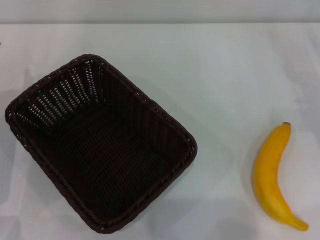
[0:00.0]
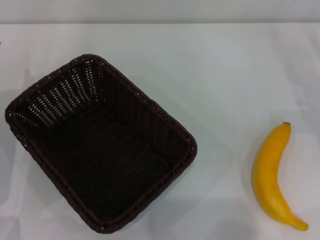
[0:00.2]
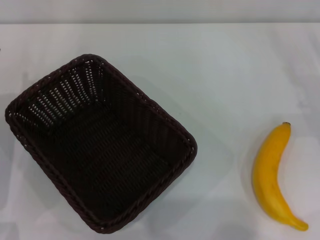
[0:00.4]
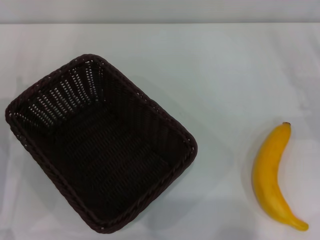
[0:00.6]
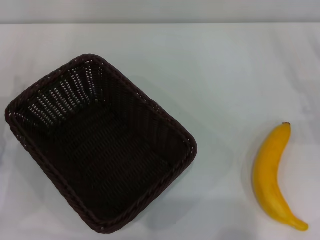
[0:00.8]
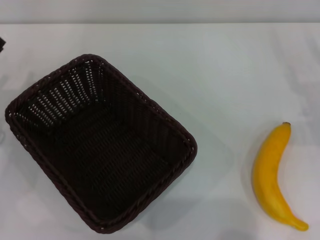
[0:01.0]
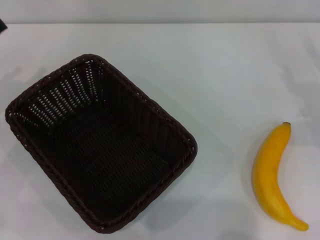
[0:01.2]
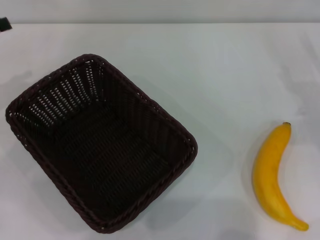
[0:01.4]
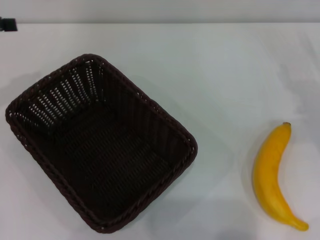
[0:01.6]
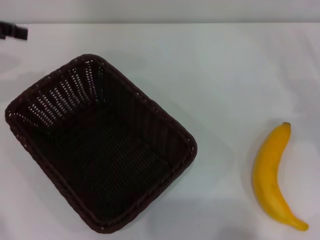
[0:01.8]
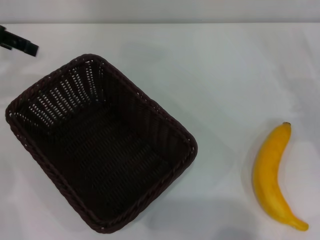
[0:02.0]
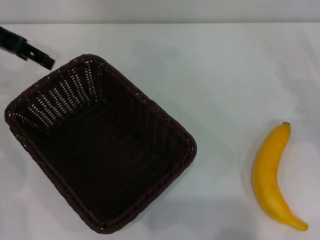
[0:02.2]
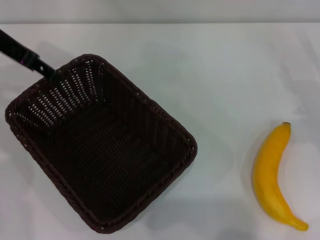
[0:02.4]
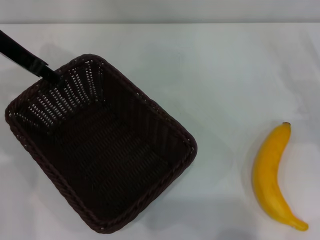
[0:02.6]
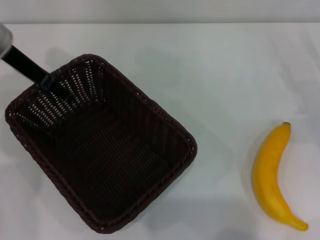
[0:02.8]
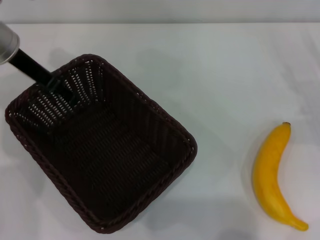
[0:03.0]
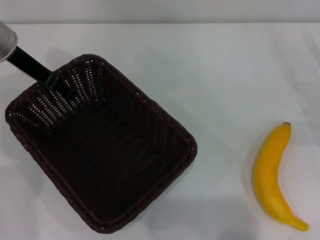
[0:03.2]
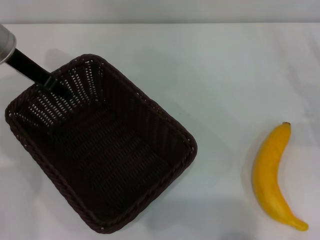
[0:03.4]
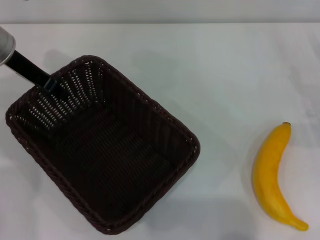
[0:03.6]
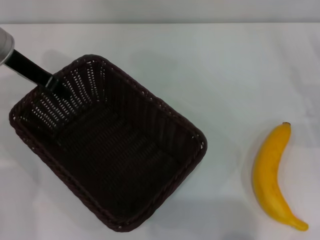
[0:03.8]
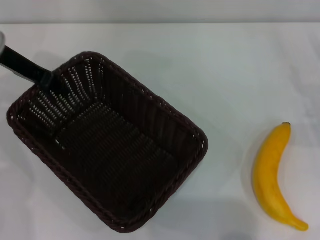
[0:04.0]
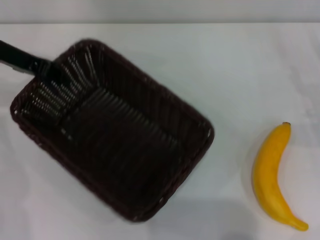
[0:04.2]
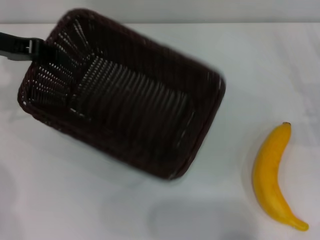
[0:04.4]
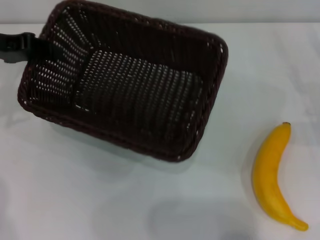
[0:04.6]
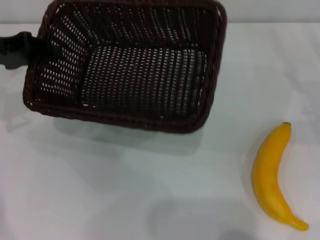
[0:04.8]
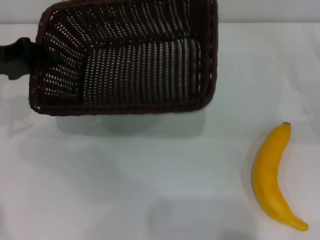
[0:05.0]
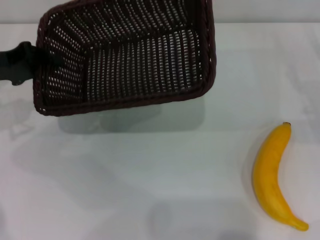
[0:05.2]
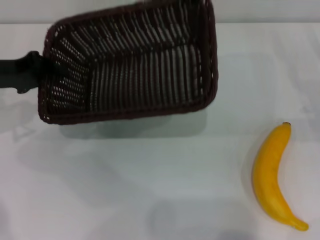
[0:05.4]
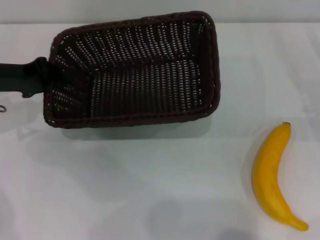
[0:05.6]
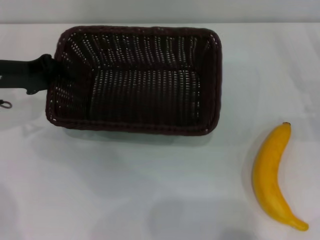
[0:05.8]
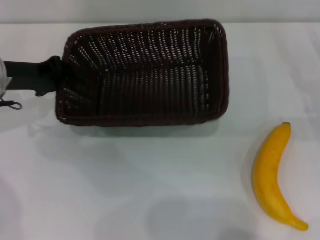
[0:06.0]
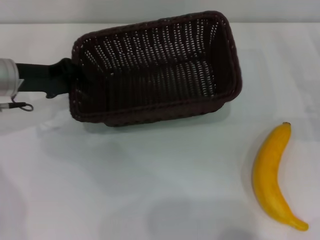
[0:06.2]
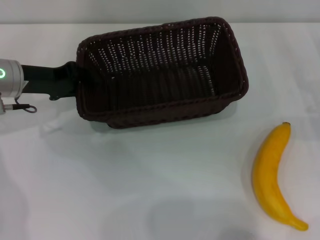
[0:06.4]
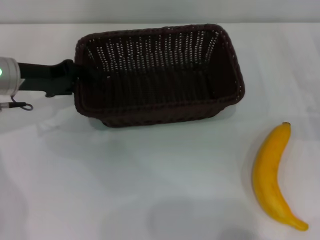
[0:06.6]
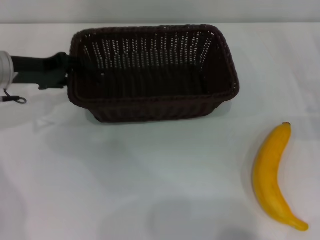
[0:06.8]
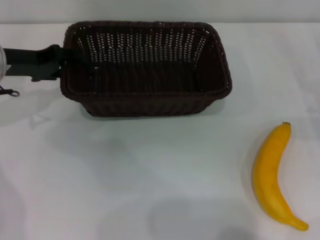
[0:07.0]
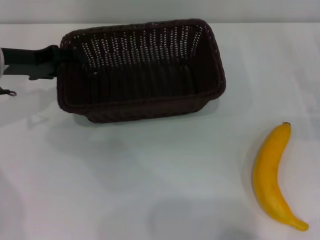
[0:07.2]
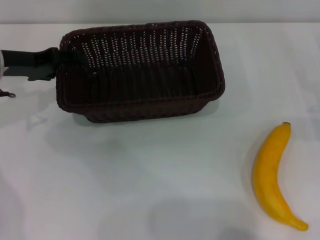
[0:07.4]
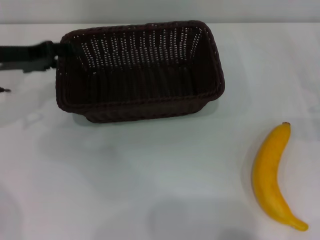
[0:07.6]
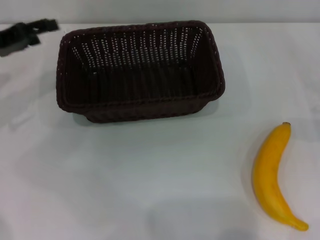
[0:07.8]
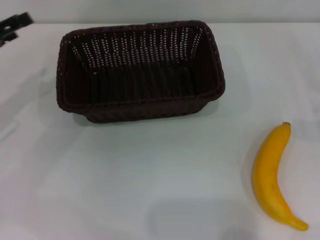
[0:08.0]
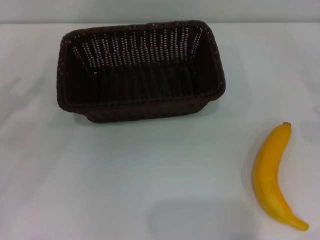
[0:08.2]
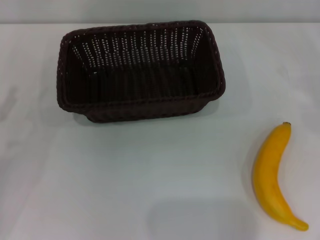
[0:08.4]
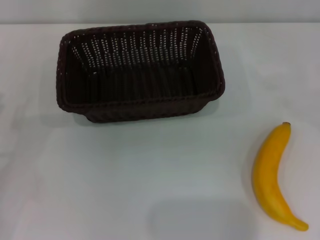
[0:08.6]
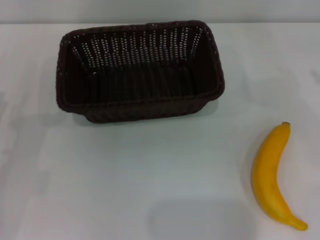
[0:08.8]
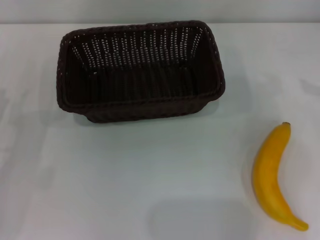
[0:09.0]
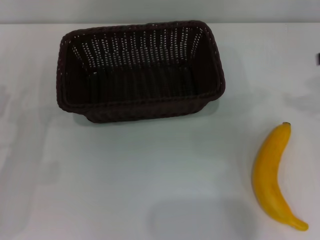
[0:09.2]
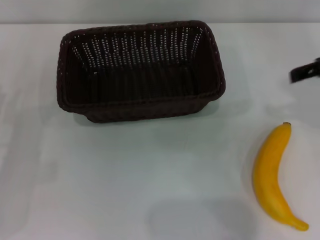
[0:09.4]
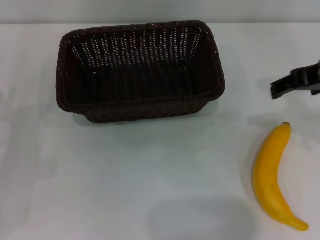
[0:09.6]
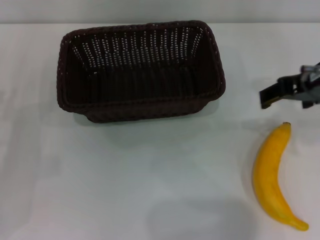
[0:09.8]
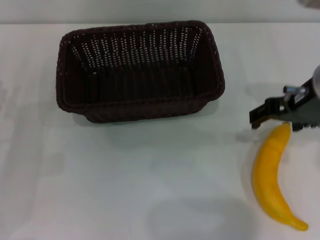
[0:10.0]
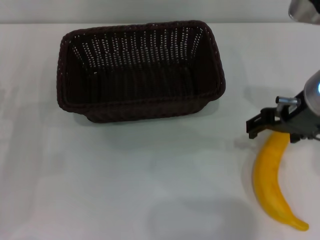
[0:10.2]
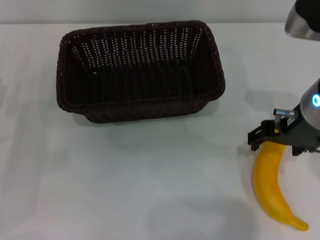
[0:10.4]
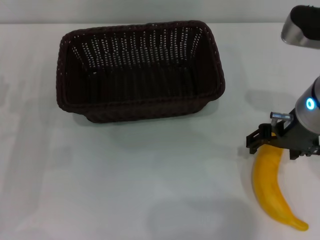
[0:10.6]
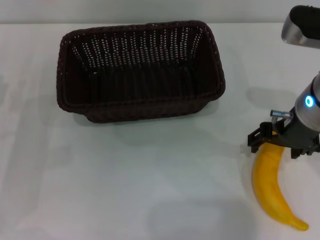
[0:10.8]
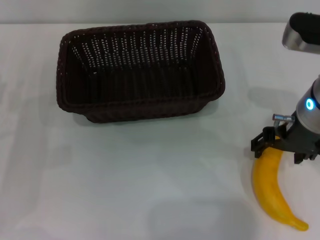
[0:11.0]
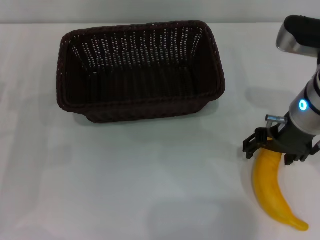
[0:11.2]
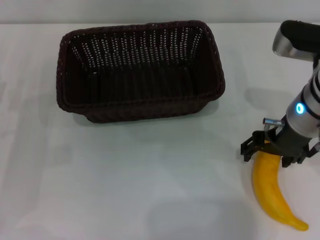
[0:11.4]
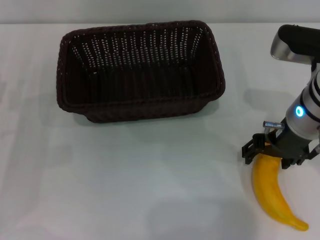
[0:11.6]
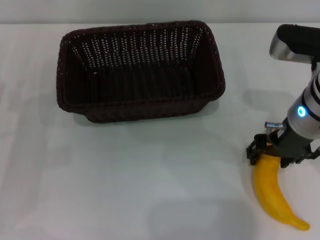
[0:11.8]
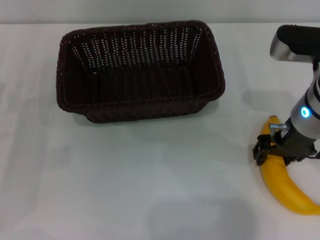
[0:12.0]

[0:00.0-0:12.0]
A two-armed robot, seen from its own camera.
Step, 0:00.0 to 0:04.2: Pick up the dark basket with the left gripper.
Step, 0:04.6 to 0:07.6: Place the dark basket in the center of view with the left gripper.
0:00.0 to 0:01.6: The left gripper is displaced upward and to the left by some 20 cm.
0:01.6 to 0:03.0: The left gripper is displaced to the right and forward by about 15 cm.
0:03.0 to 0:04.4: The left gripper travels to the left by approximately 5 cm, and closes.
0:04.4 to 0:06.0: The left gripper is displaced downward by about 5 cm.
0:06.0 to 0:07.6: The left gripper opens its fingers.
0:07.6 to 0:09.0: The left gripper heads backward and downward, covering some 15 cm.
0:09.0 to 0:10.4: The right gripper travels to the left by about 20 cm.
0:10.4 to 0:12.0: The right gripper closes up.

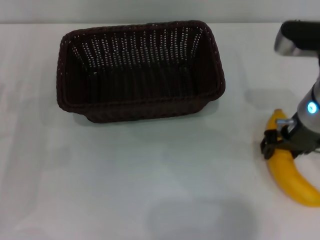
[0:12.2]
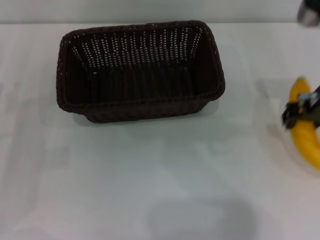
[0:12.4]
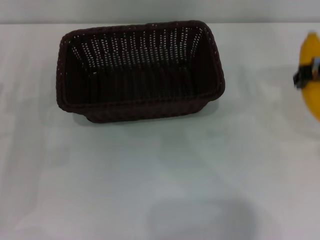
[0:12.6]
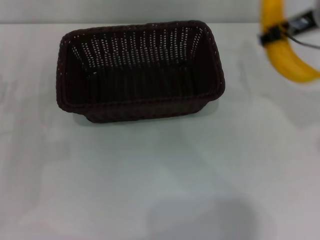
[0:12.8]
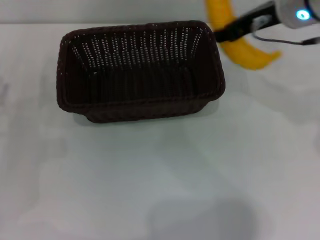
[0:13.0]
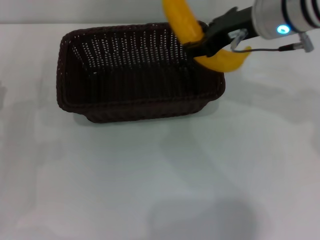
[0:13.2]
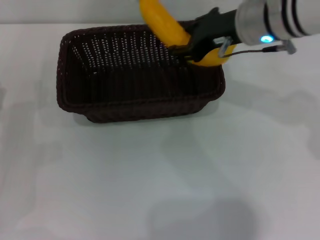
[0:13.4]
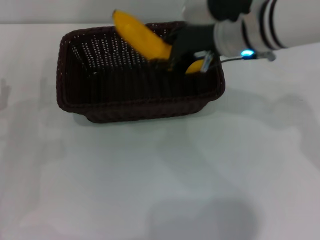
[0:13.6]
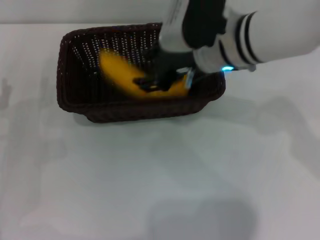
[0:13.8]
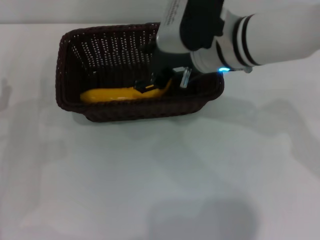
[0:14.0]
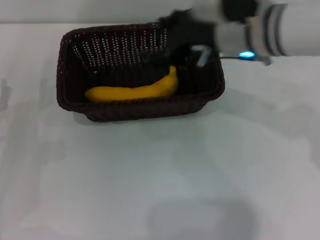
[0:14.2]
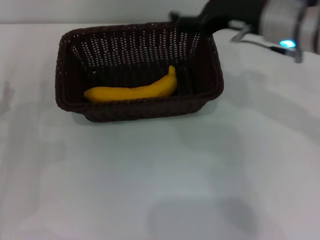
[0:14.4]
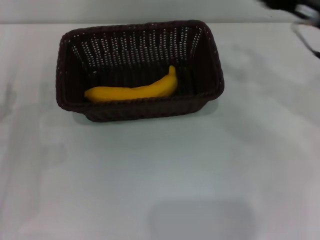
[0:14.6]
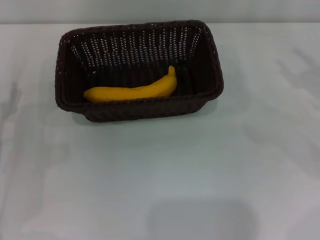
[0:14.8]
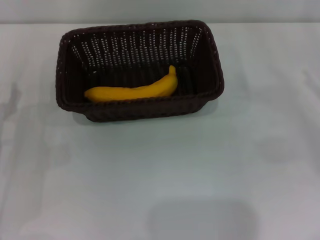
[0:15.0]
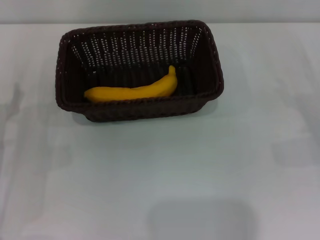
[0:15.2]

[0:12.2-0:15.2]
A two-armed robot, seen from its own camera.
Step, 0:12.8 to 0:14.2: Place the banana into the dark basket with the right gripper.
0:12.2 to 0:13.8: The right gripper travels to the left and forward by some 10 cm.
0:13.8 to 0:15.2: The right gripper heads to the right and downward, covering some 30 cm, and opens.
